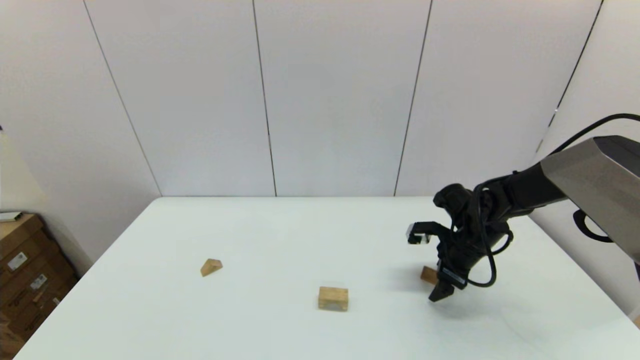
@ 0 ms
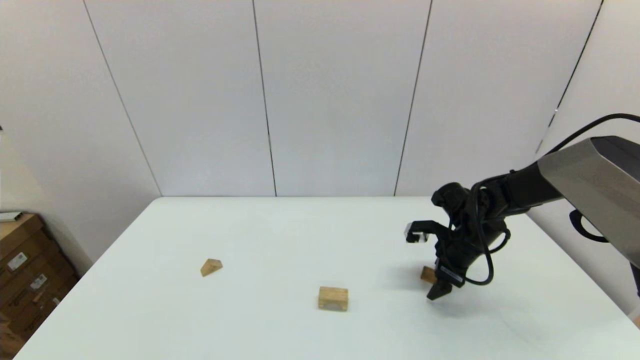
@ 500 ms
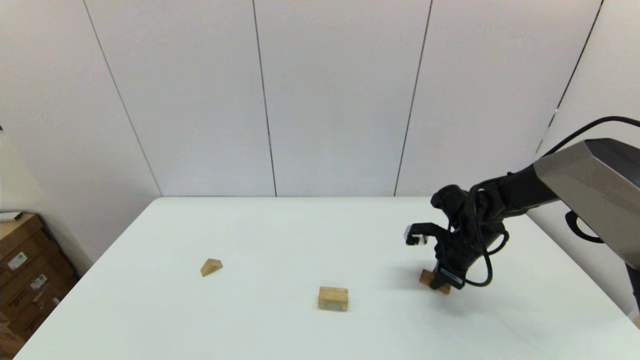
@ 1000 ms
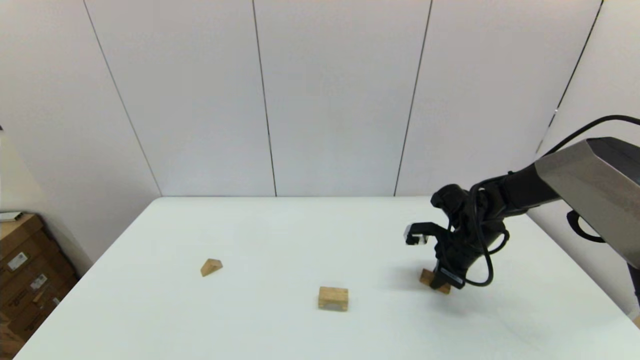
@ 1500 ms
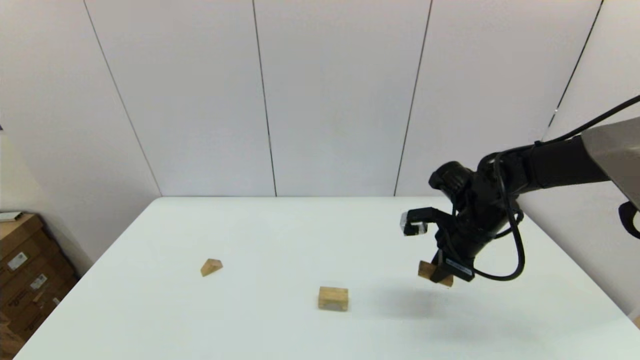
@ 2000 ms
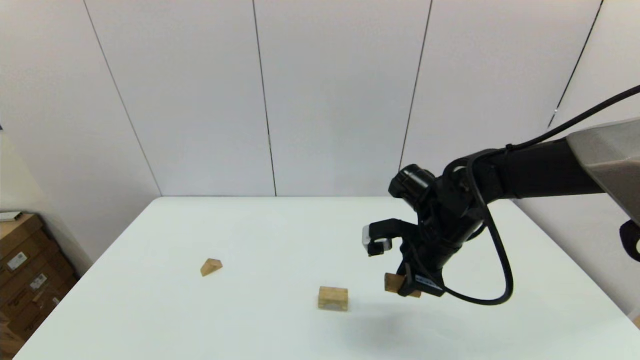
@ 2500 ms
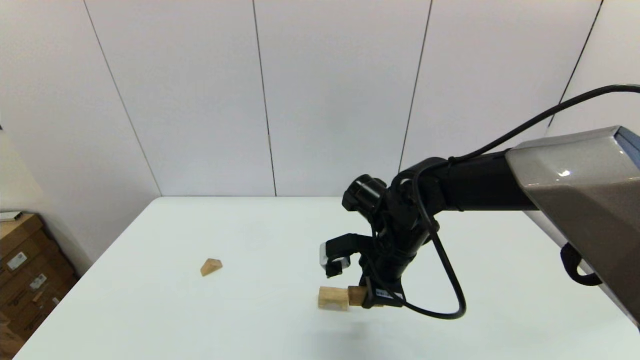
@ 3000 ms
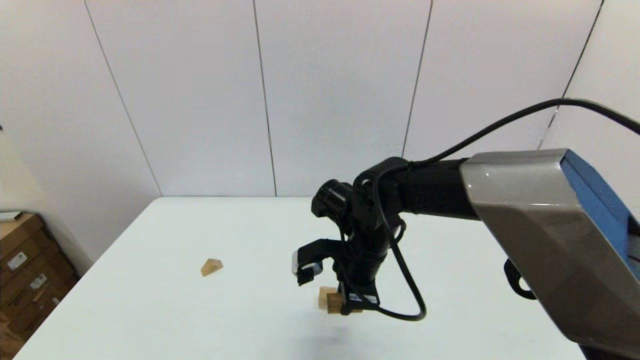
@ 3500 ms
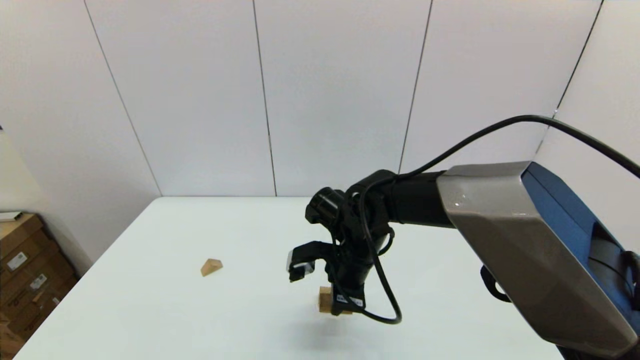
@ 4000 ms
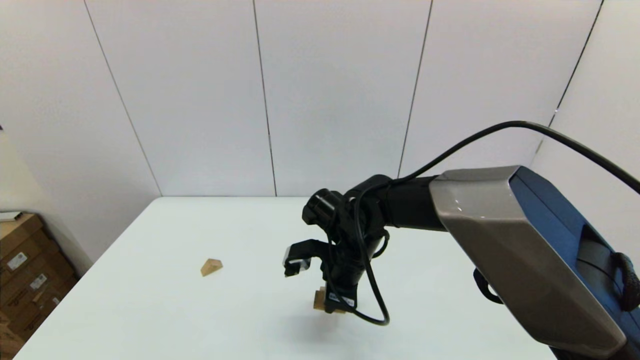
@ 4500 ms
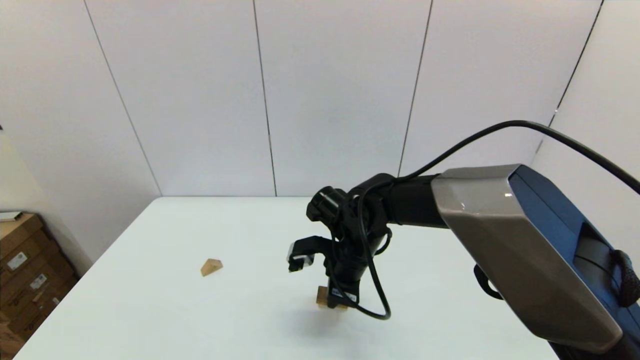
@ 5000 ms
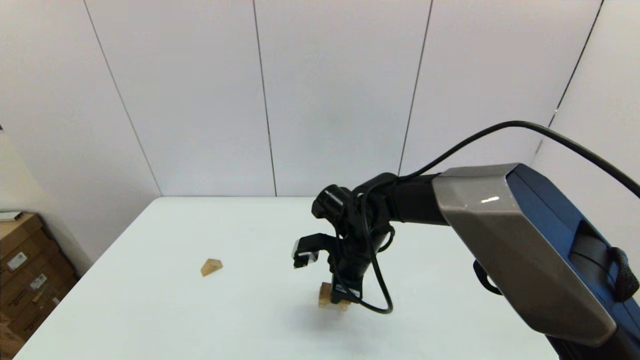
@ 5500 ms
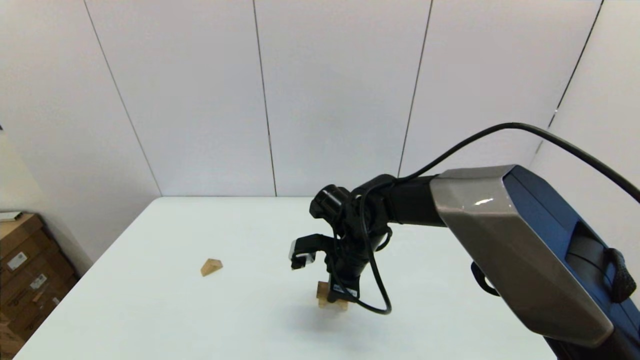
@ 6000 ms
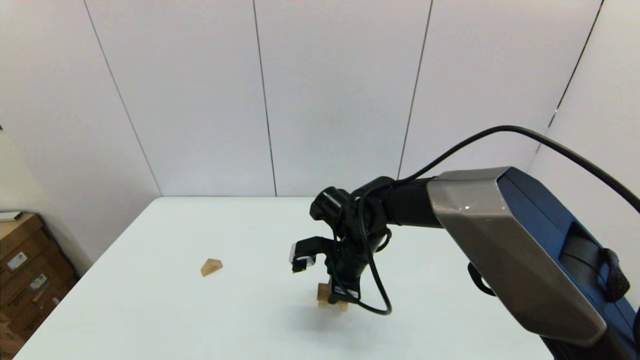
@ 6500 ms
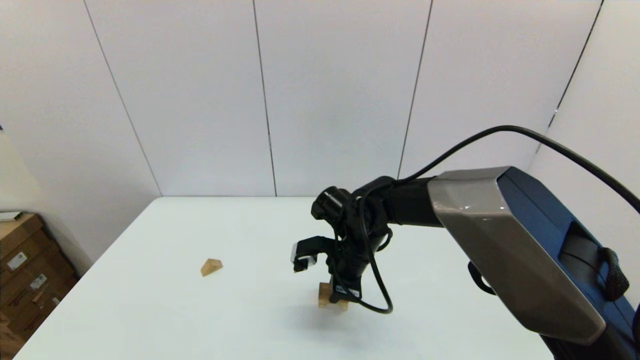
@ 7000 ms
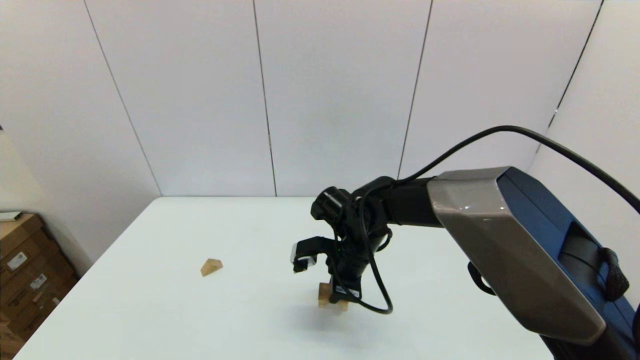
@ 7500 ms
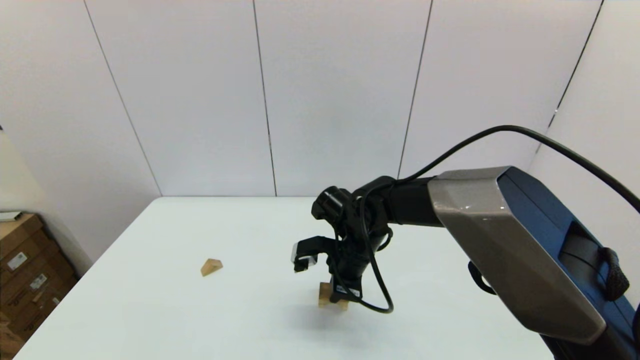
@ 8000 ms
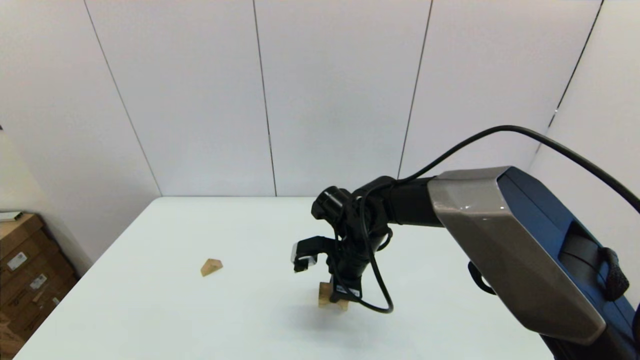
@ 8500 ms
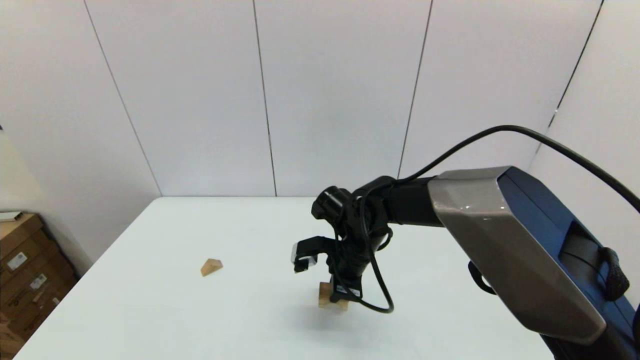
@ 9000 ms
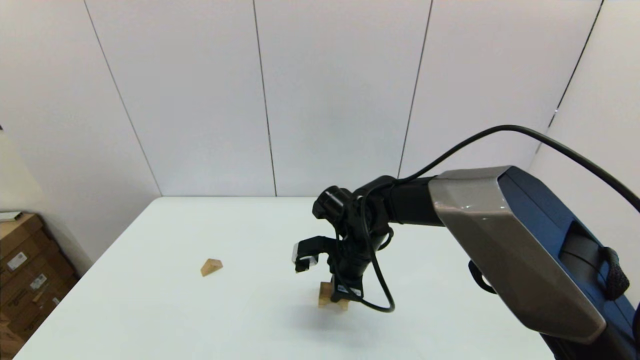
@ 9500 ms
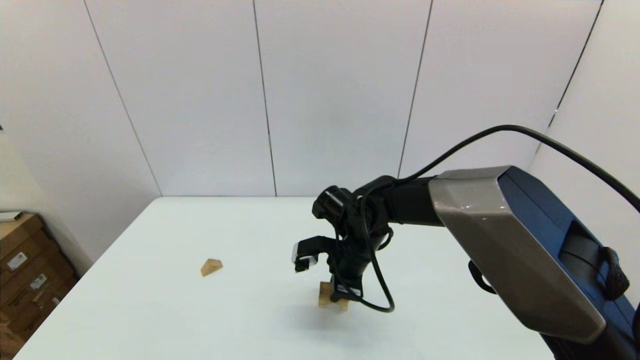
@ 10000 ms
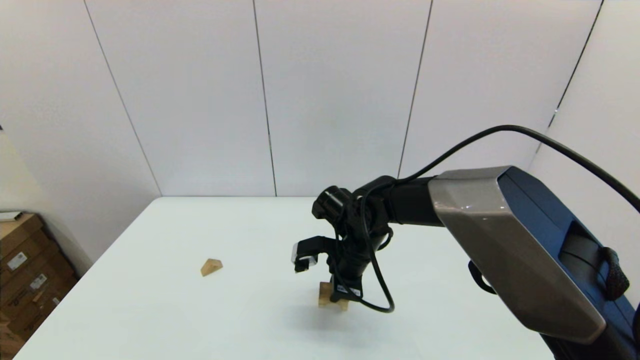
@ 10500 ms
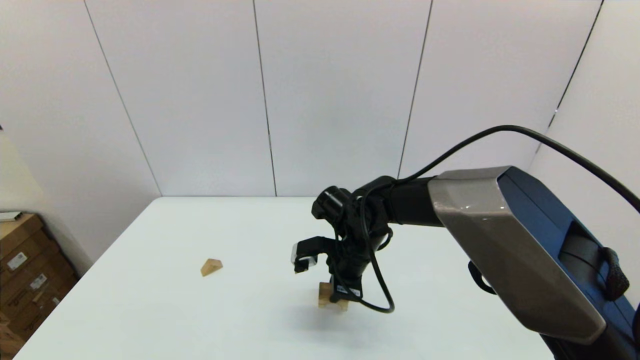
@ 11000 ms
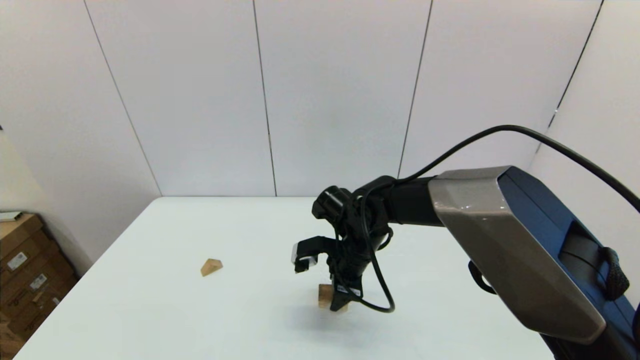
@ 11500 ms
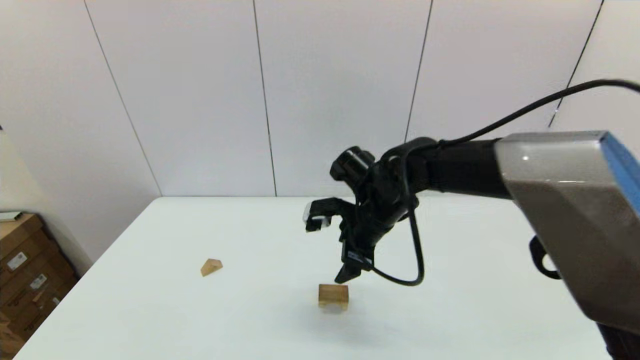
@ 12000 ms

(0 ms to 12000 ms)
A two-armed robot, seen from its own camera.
Task of the whole recording: place the arched building blocks in the center of the table, set up the rectangular building blocks, and then set up the triangular building blocks.
Step, 1500 ms - 11500 ms: Place the box-shaped block onto the arch-shaped block with the right gripper.
0 ms - 2000 ms: The right gripper is displaced upward by some 5 cm, and closes.
2000 ms - 4000 ms: The right gripper is displaced to the left by about 20 cm.
4000 ms - 6000 ms: The grippers make only small movements.
6000 ms - 10000 ms: Neither gripper changes place.
10000 ms - 12000 ms: The right gripper shifts about 5 cm upward, and opens up.

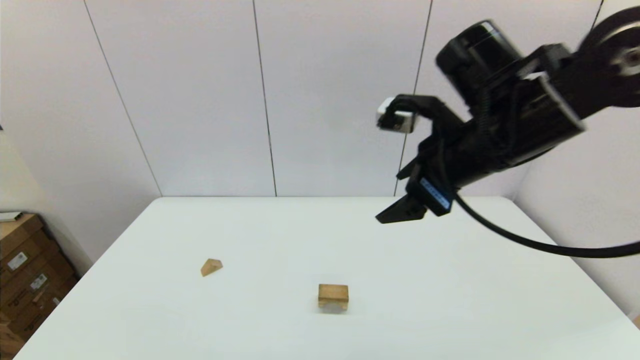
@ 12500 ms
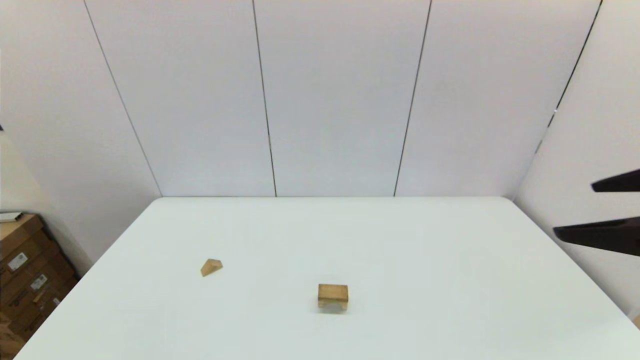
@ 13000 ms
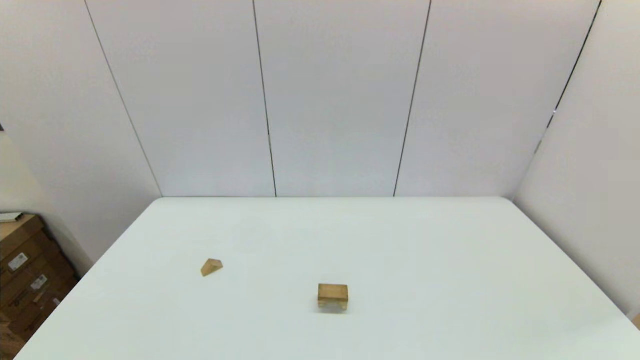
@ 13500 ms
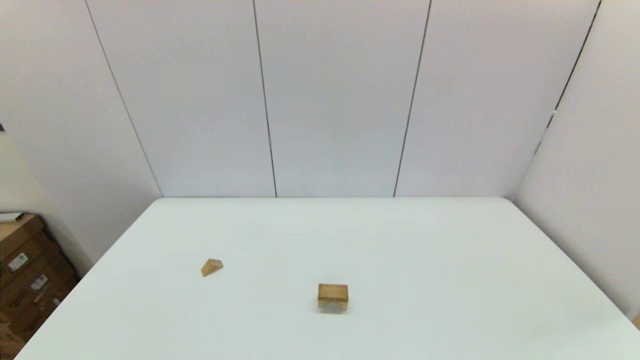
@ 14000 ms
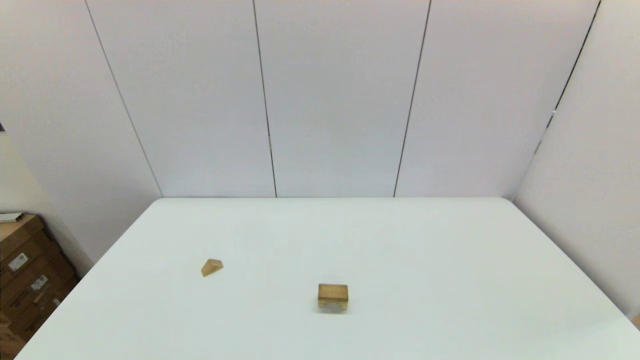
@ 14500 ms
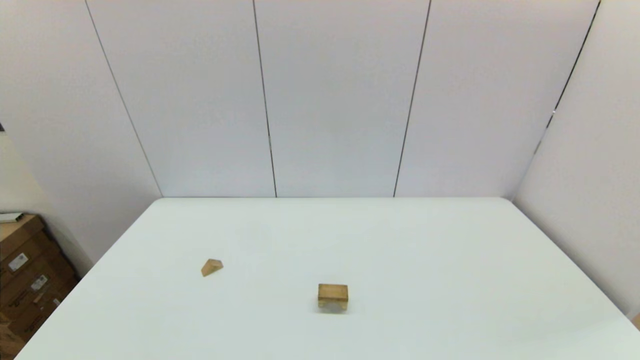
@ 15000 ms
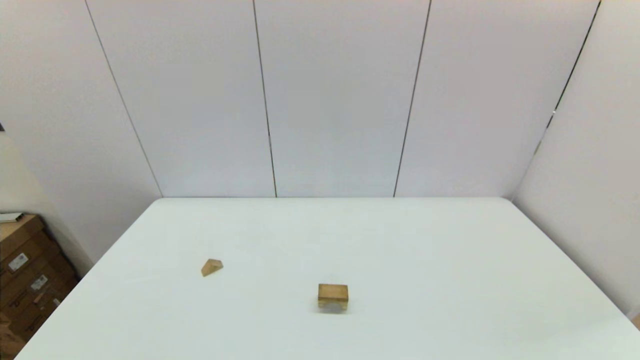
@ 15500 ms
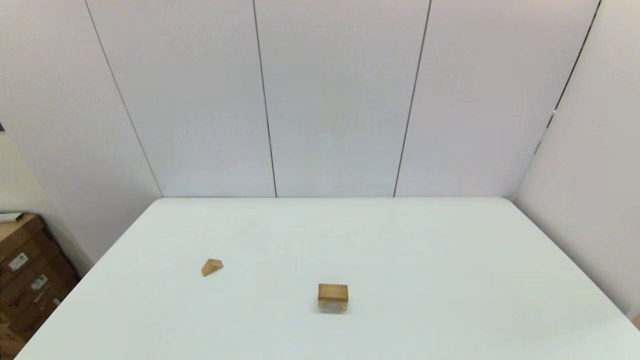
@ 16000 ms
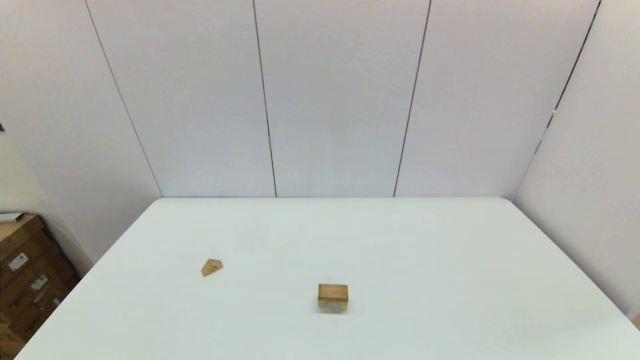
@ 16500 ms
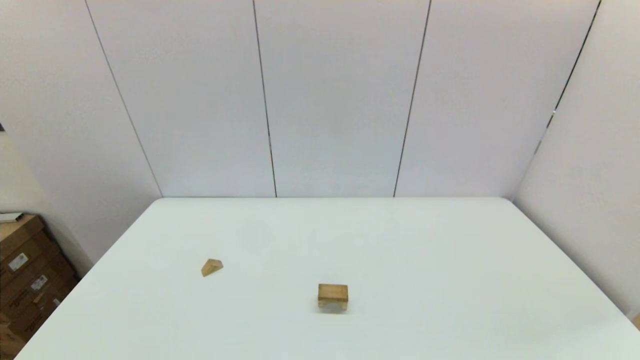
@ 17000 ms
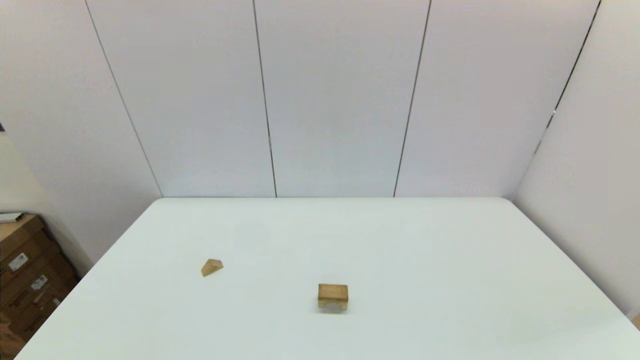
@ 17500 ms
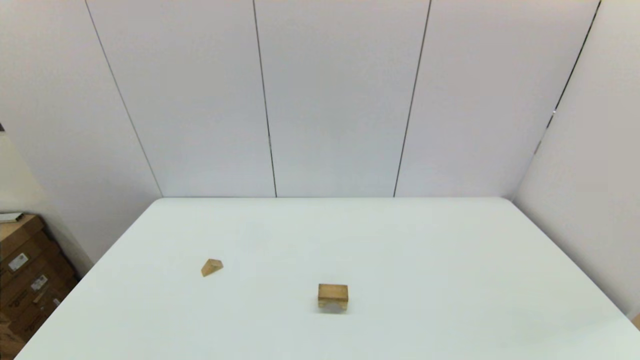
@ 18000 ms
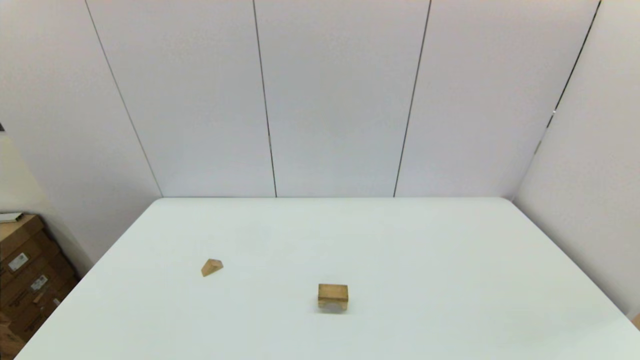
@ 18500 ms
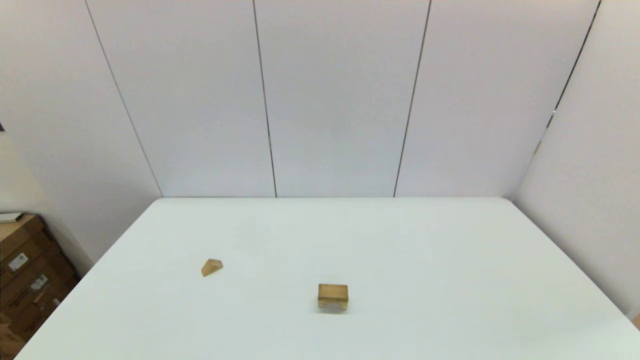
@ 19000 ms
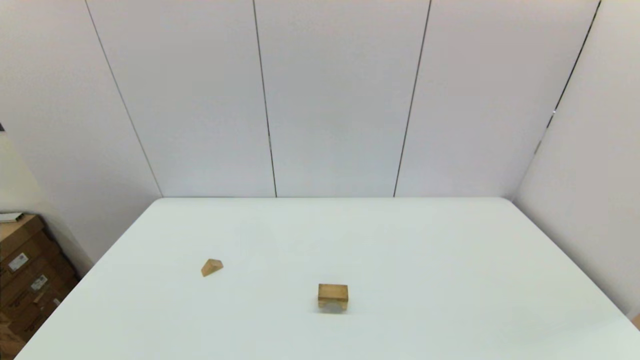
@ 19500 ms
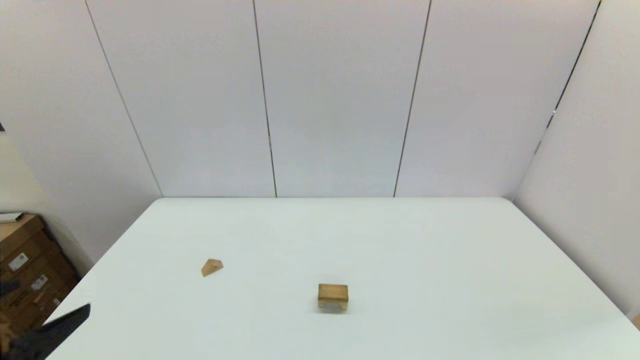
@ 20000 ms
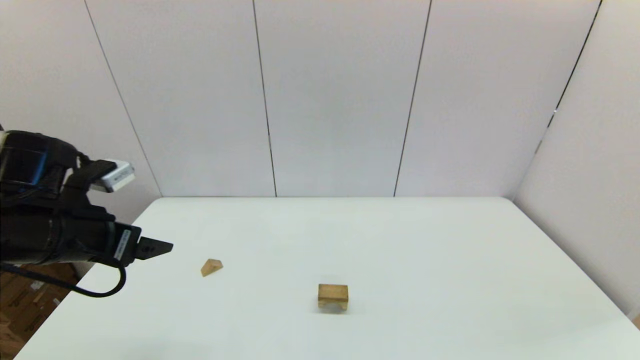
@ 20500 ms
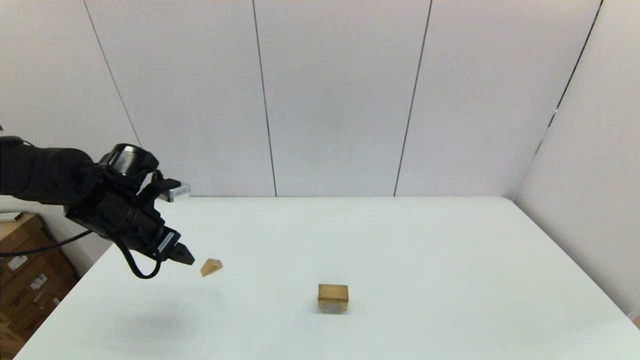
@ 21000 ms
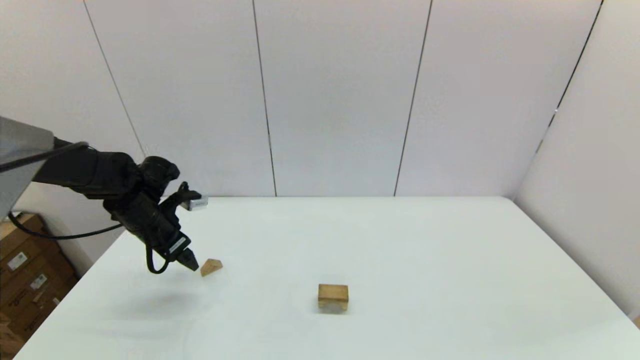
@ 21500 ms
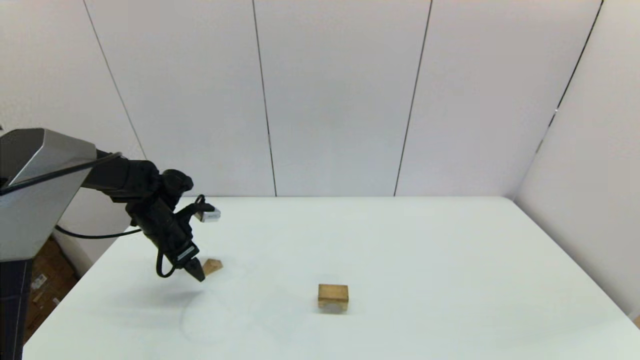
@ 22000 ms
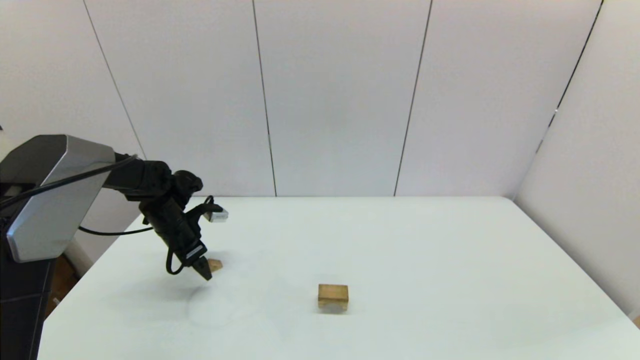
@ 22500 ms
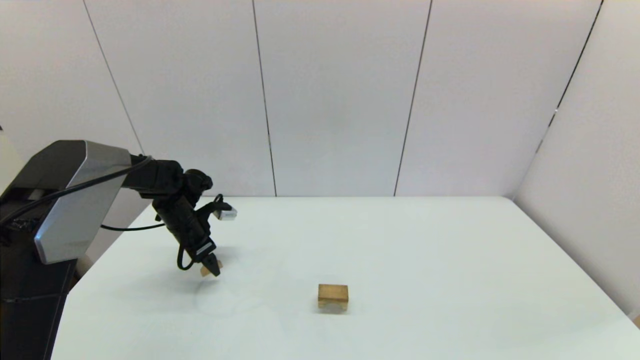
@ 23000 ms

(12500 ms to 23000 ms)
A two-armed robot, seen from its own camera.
Task of the whole recording: place the arched building blocks in the center of the table, set up the rectangular building blocks, and then set up the triangular building blocks.
12500 ms - 14500 ms: The right gripper moves backward and to the right, some 40 cm.
19000 ms - 21000 ms: The left gripper goes approximately 35 cm forward.
21000 ms - 23000 ms: The left gripper heads forward and downward, covering approximately 15 cm.
